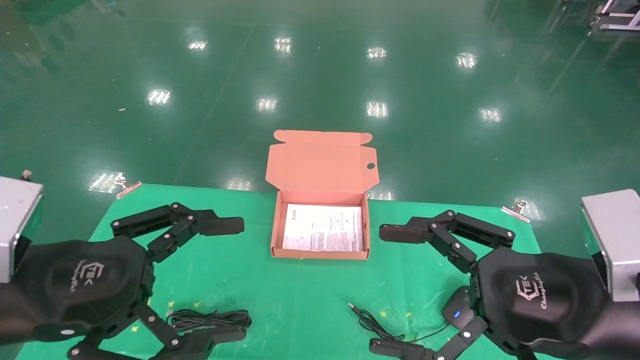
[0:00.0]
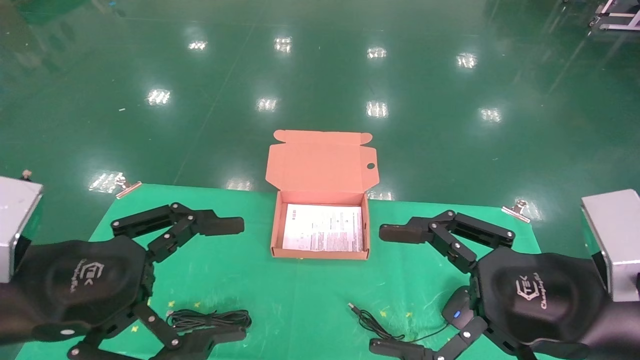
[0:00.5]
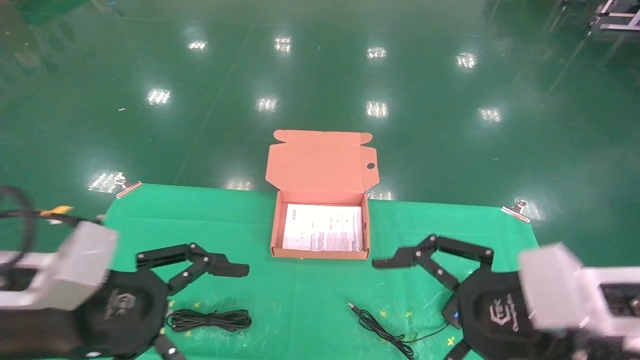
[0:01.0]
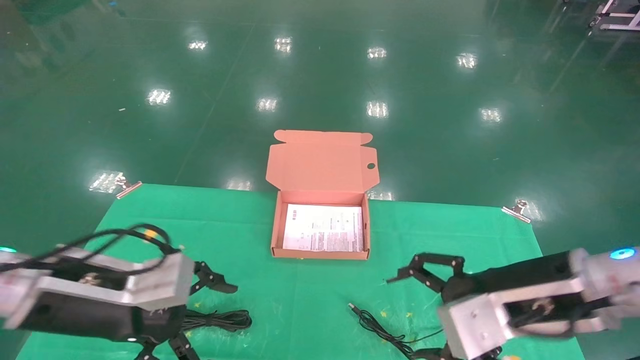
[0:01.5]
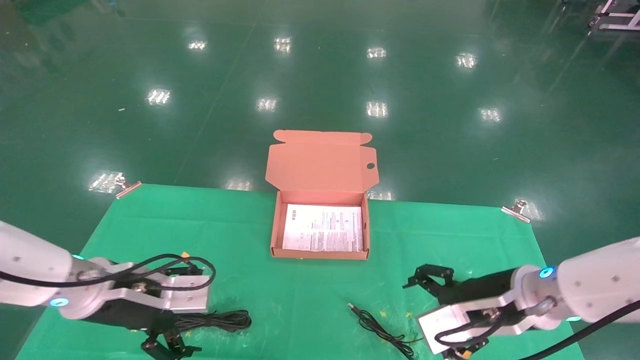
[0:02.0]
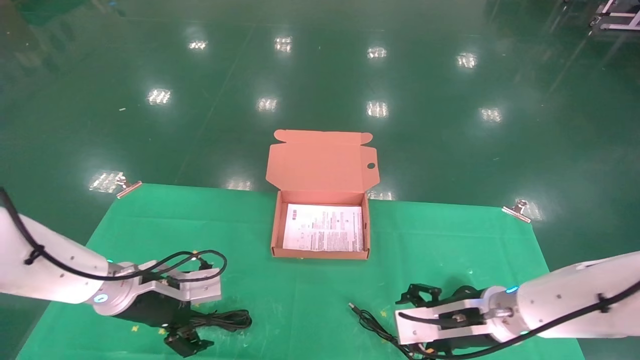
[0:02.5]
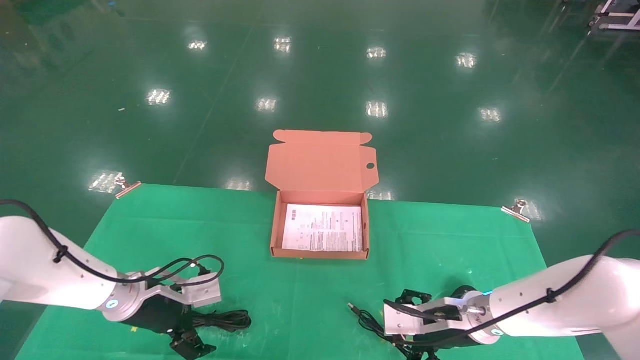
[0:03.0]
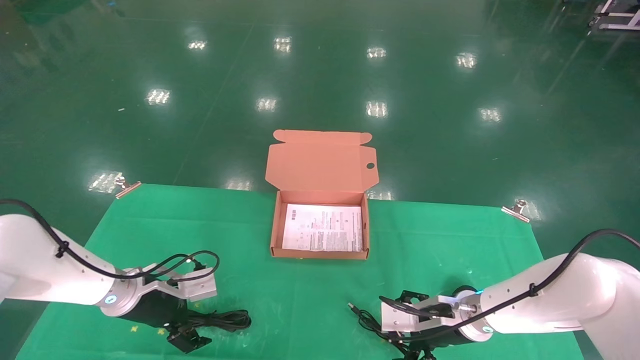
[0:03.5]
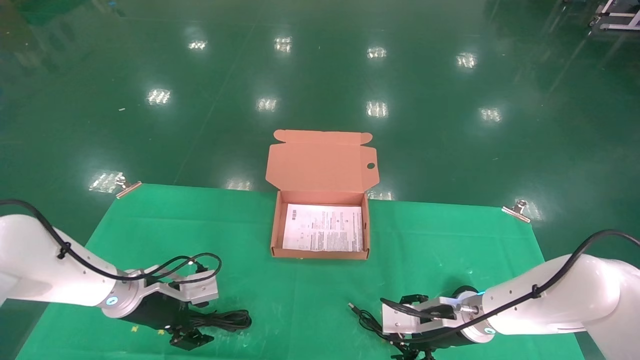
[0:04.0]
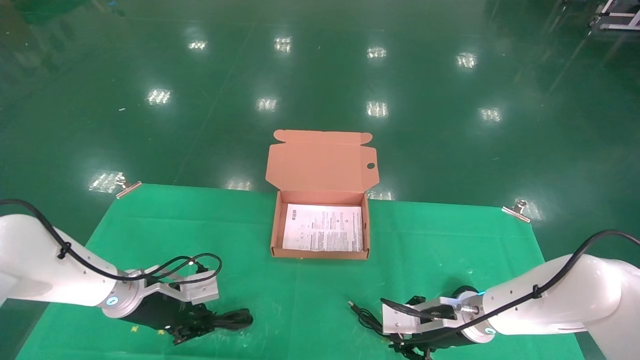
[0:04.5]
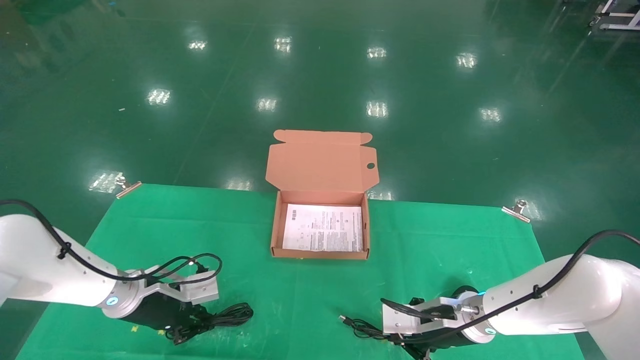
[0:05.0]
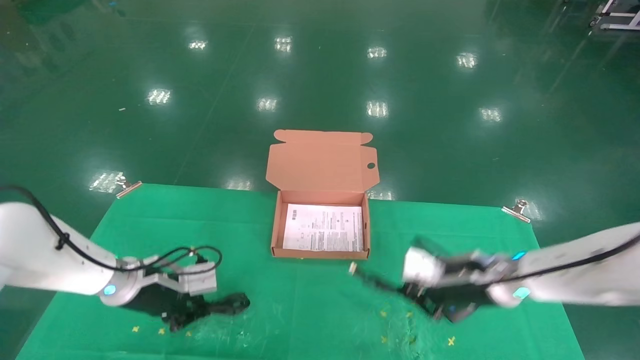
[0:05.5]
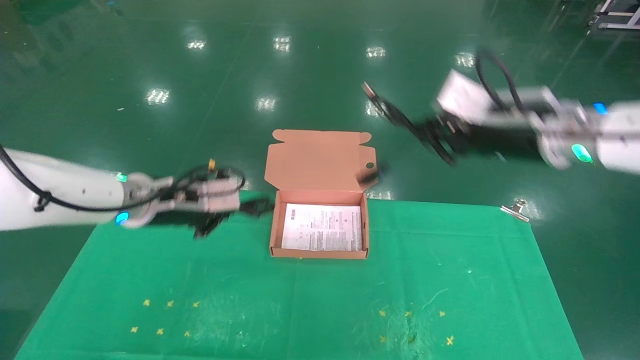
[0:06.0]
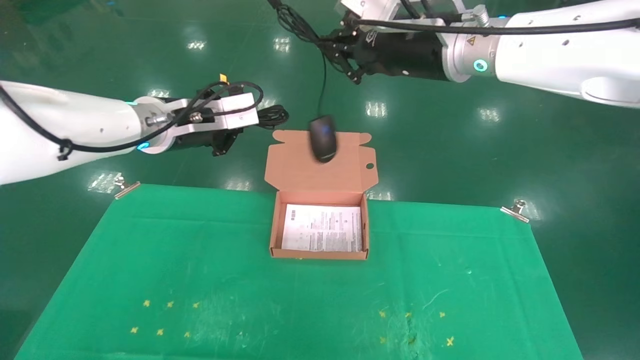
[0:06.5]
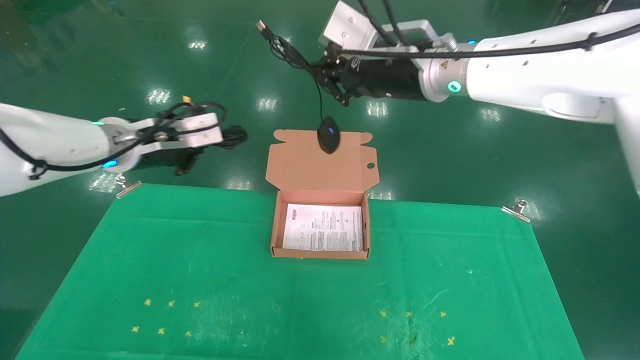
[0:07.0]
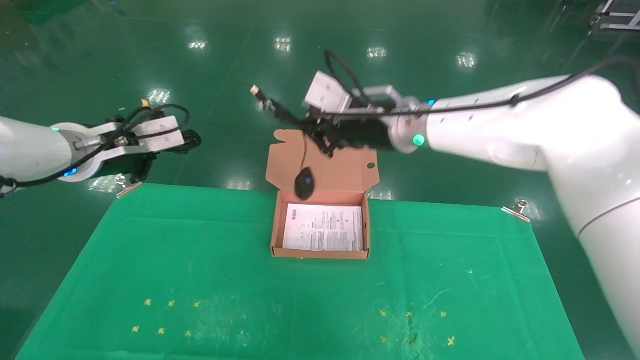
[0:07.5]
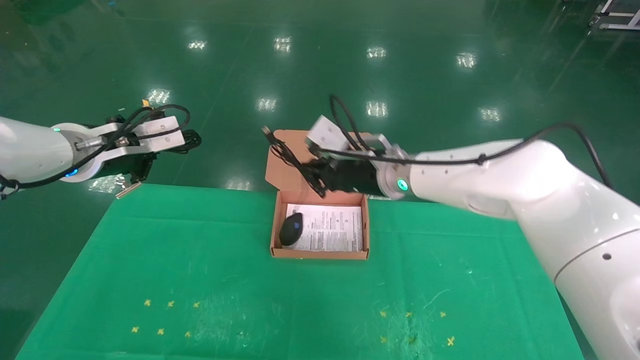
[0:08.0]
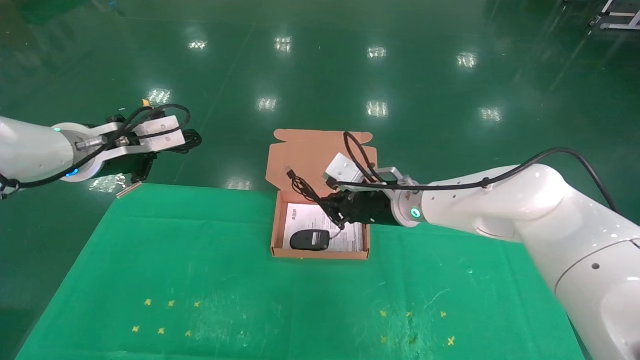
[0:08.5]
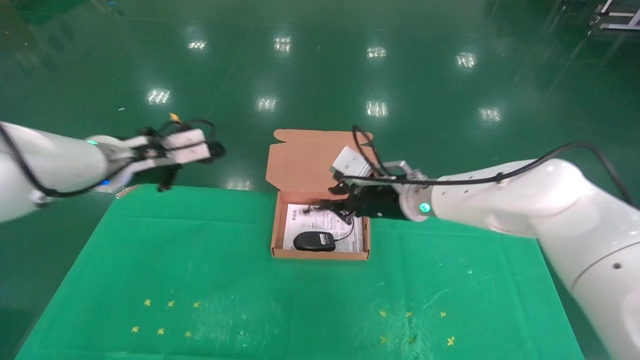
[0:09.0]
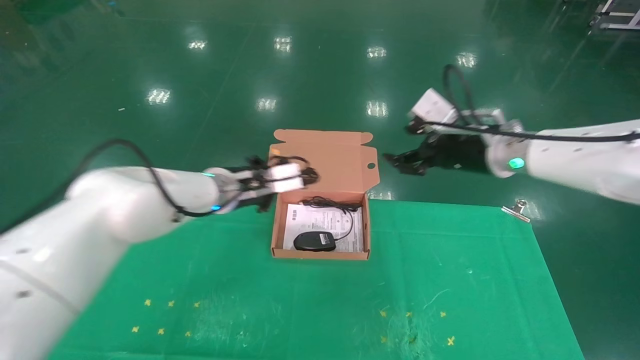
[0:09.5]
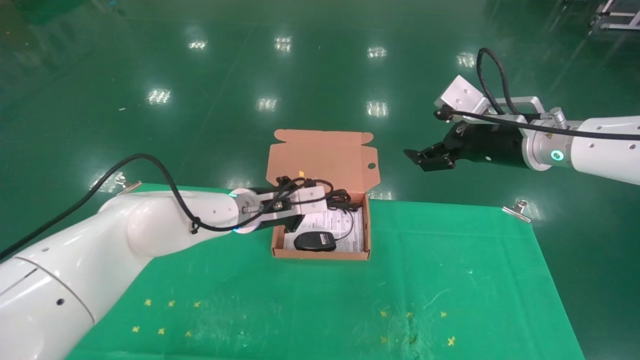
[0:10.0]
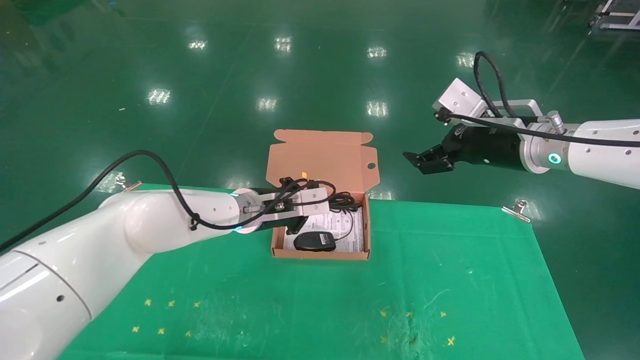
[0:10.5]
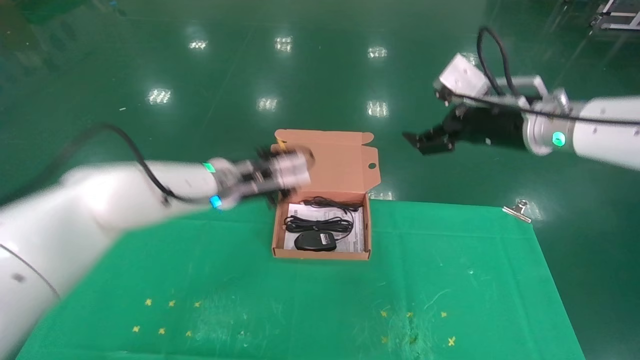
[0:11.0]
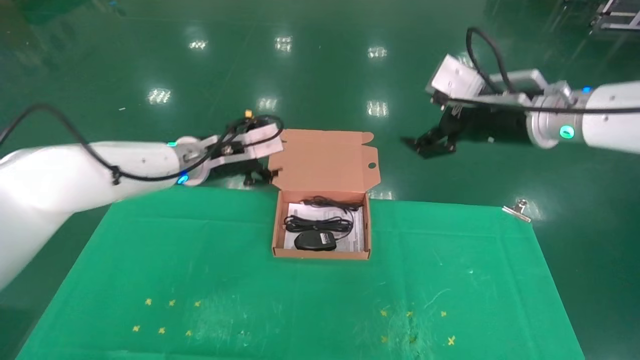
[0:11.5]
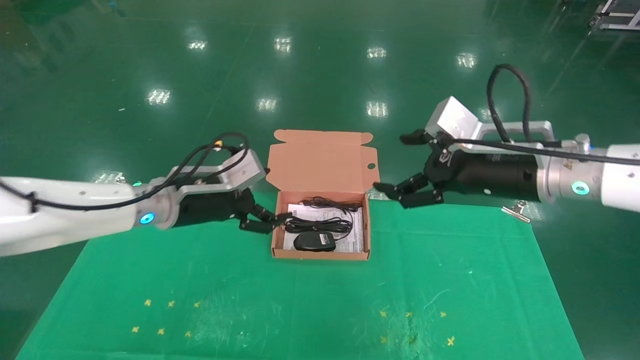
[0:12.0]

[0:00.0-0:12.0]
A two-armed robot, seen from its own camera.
Task of the whole recording: grasp data cable left put into box grasp mouse right put into box.
Step, 0:00.0 to 0:05.5: Grab and pick up both the mouse and power cord from the accessory packaging area at the same time.
Step, 0:06.0 to 0:11.0: Place the mouse and power cord into the box.
0:00.0 to 0:02.0: Both grippers move forward and downward, about 15 cm.
0:02.0 to 0:04.0: The left gripper goes about 10 cm forward and downward. The right gripper is displaced downward and forward by about 10 cm.
0:04.0 to 0:06.0: The right gripper travels upward by approximately 30 cm, and closes its fingers. Meanwhile the left gripper shifts about 15 cm upward, and closes its fingers.
0:06.0 to 0:08.0: The left gripper goes about 10 cm upward and to the left. The right gripper moves to the left, forward and downward, some 20 cm.
0:08.0 to 0:10.0: The right gripper heads to the right, covering some 15 cm, and opens its fingers, while the left gripper heads to the right, downward and forward, covering some 25 cm.
0:10.0 to 0:12.0: The right gripper is displaced backward by roughly 5 cm. The left gripper moves to the left and backward, approximately 10 cm, and opens.
